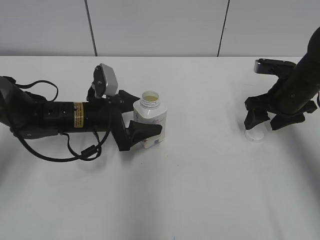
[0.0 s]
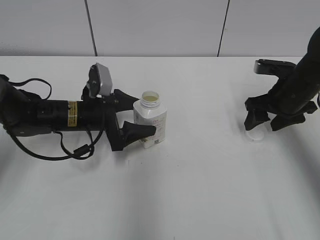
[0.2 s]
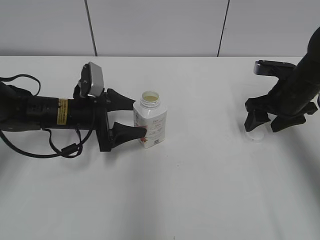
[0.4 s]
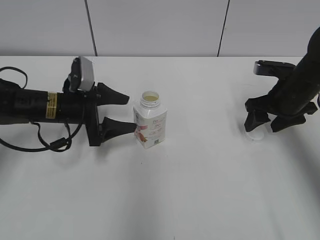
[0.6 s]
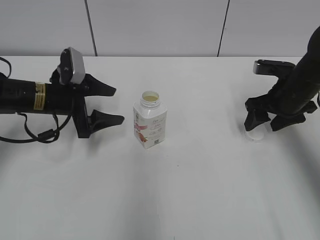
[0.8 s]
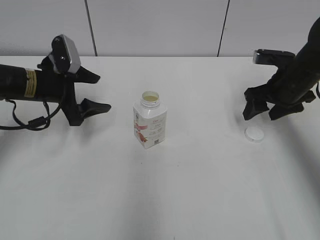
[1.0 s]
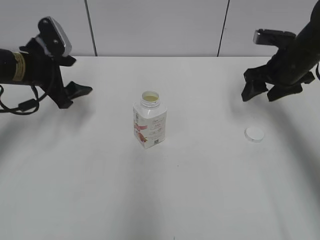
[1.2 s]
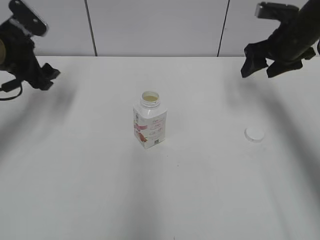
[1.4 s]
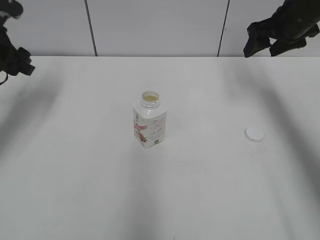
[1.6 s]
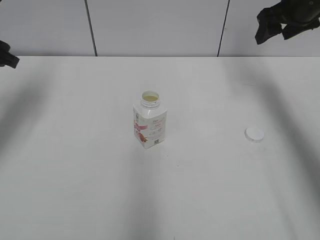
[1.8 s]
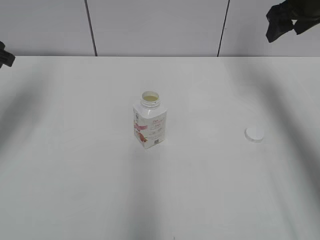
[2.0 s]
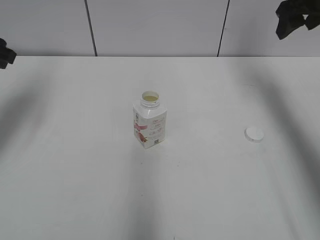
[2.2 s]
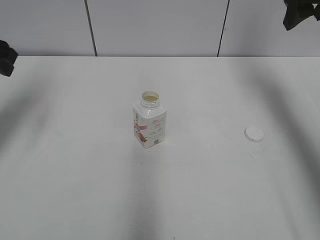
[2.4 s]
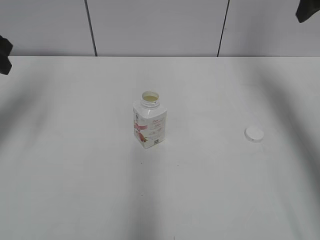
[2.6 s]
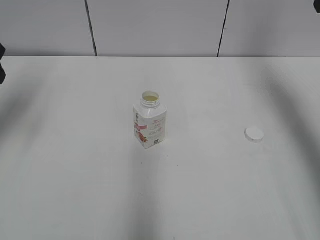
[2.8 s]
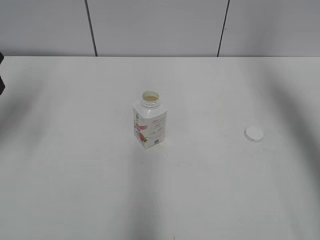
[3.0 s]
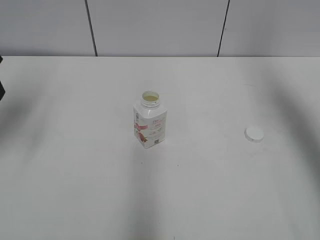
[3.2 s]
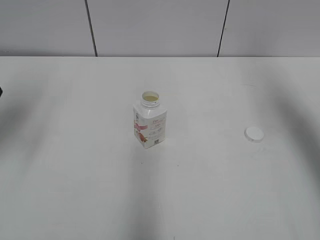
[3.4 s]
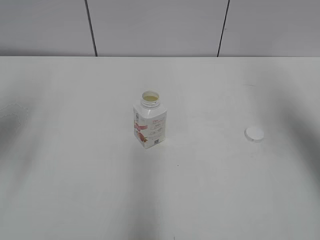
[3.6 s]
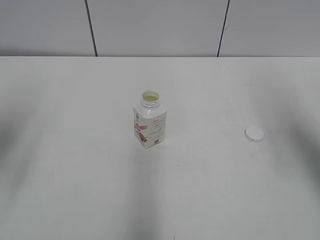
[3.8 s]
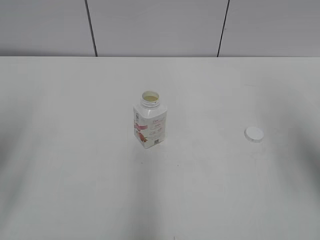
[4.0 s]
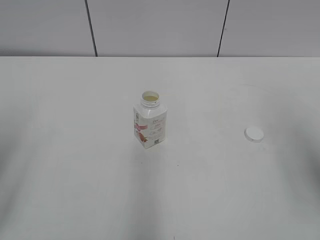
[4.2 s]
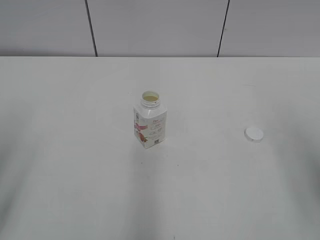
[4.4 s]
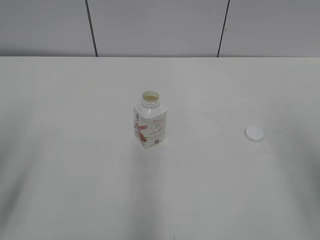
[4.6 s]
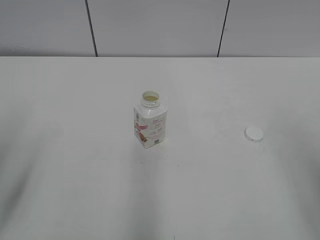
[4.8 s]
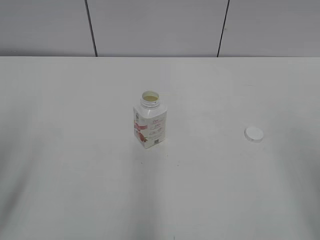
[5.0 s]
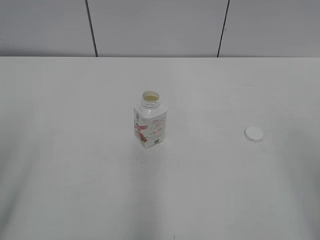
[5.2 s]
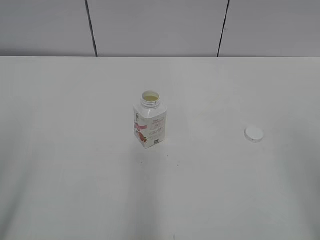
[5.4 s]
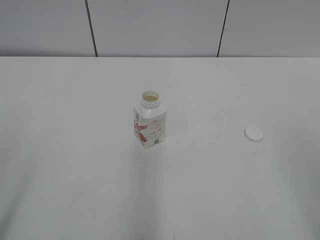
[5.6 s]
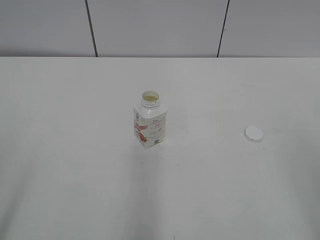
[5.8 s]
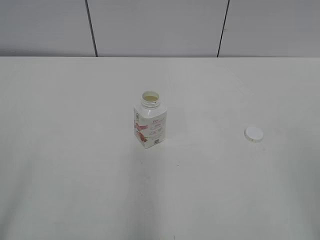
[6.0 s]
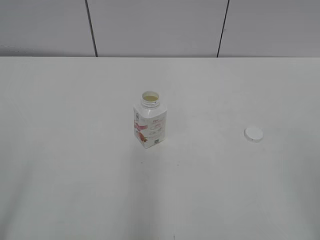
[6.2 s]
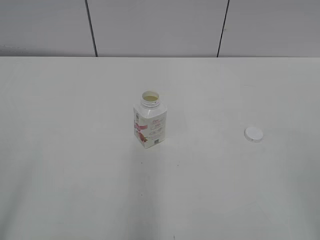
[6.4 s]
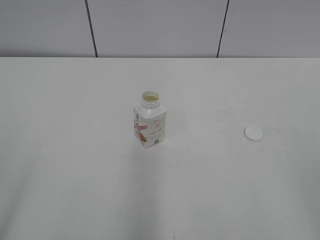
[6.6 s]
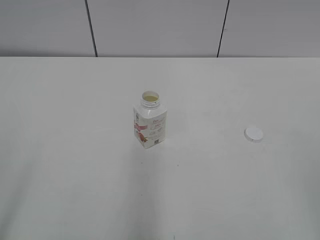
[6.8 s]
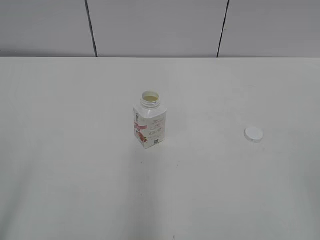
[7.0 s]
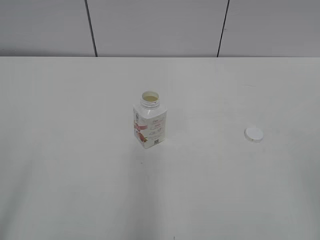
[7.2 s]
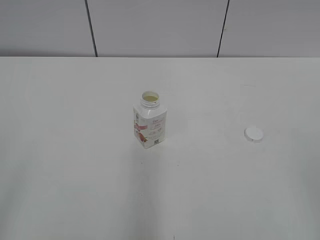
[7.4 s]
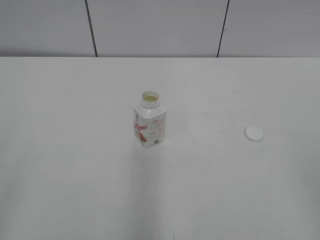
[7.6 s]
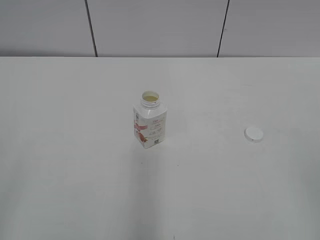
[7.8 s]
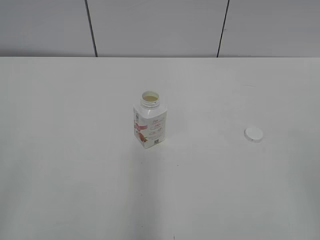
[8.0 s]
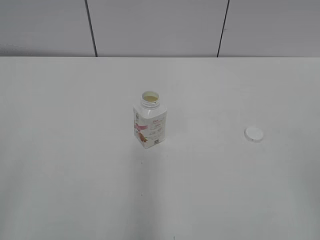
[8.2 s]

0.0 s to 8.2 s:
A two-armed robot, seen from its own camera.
Step, 0.0 to 0.2 s: Place the Yili Changqing with the left hand.
0.0 to 1.6 s: The left gripper is displaced to the left and upward by some 20 cm. Meanwhile the right gripper shifts some 15 cm upward and forward.
1.6 to 3.2 s: The right gripper shifts some 15 cm upward and backward. Meanwhile the left gripper moves backward and upward, roughly 10 cm.
3.2 to 5.0 s: Both grippers move backward, some 25 cm.

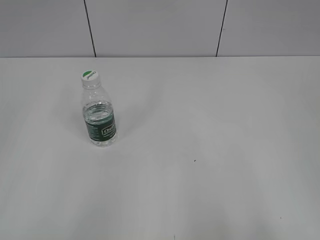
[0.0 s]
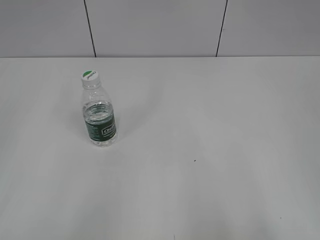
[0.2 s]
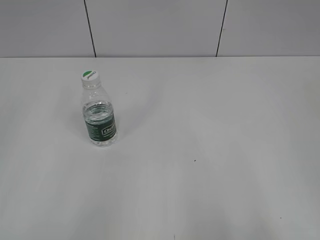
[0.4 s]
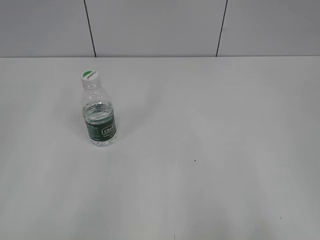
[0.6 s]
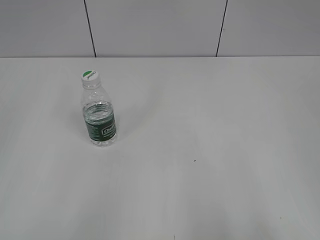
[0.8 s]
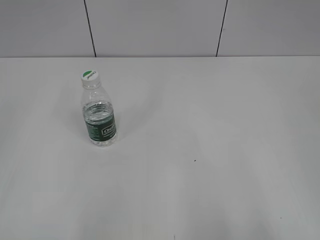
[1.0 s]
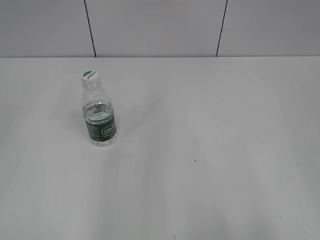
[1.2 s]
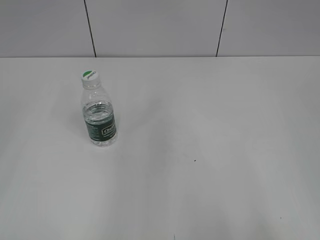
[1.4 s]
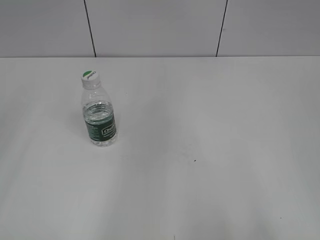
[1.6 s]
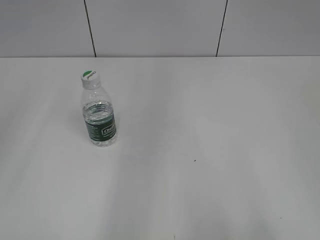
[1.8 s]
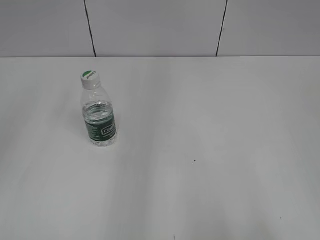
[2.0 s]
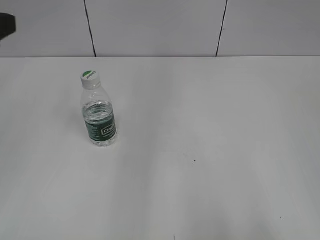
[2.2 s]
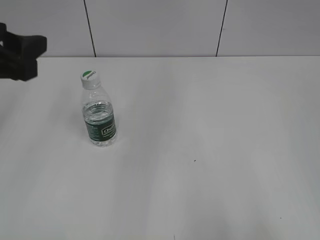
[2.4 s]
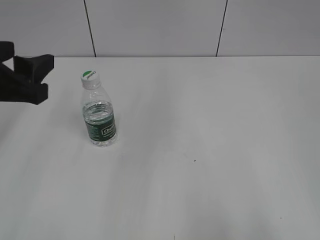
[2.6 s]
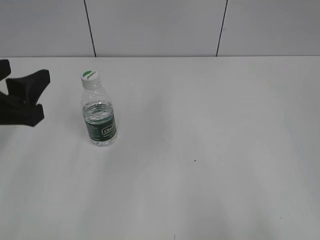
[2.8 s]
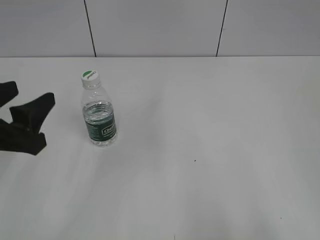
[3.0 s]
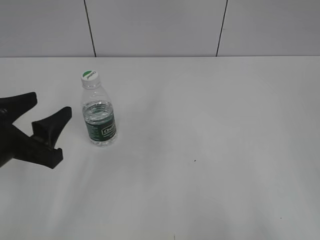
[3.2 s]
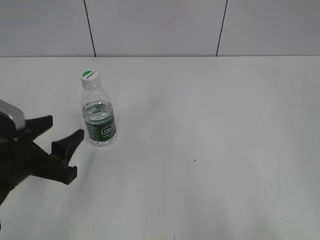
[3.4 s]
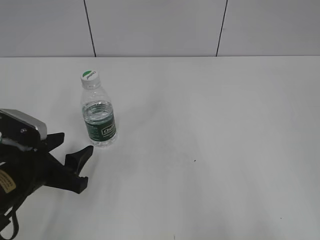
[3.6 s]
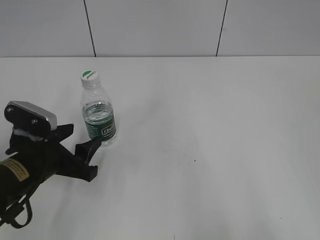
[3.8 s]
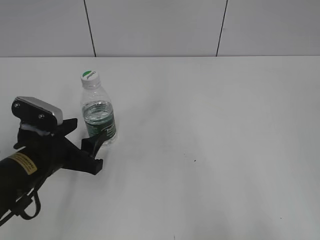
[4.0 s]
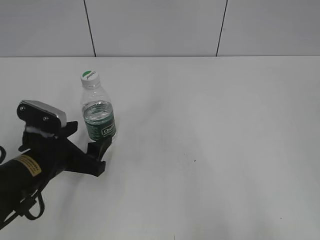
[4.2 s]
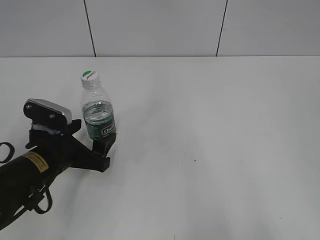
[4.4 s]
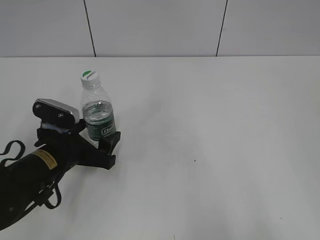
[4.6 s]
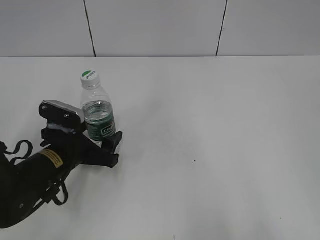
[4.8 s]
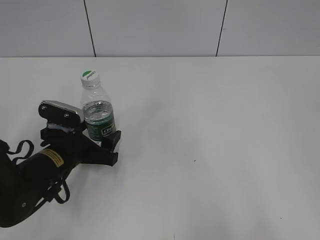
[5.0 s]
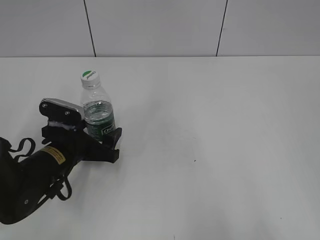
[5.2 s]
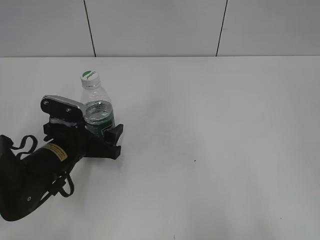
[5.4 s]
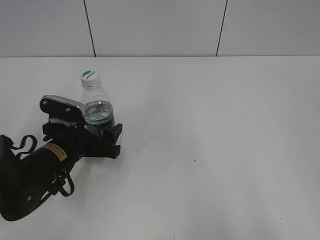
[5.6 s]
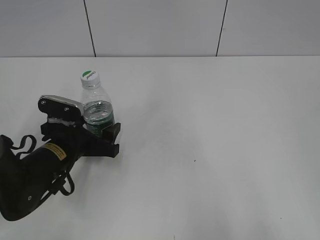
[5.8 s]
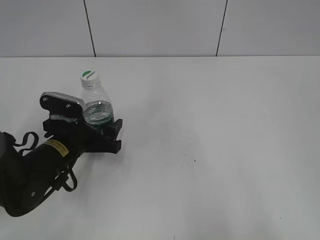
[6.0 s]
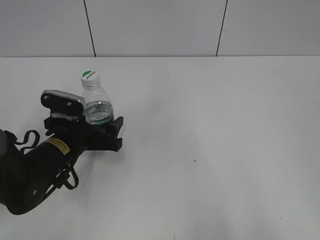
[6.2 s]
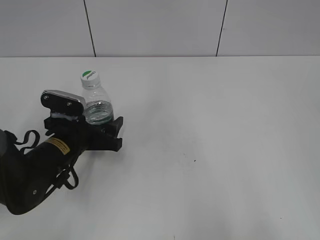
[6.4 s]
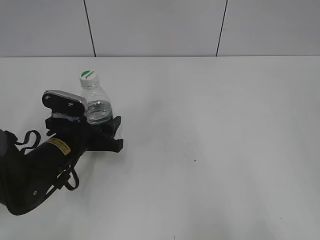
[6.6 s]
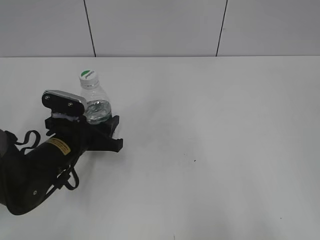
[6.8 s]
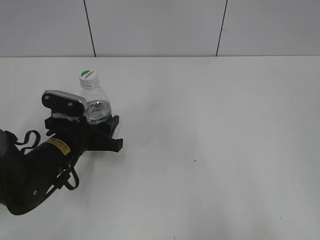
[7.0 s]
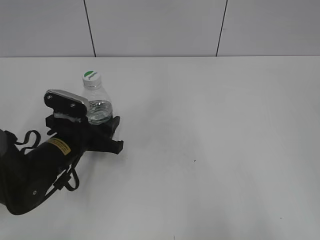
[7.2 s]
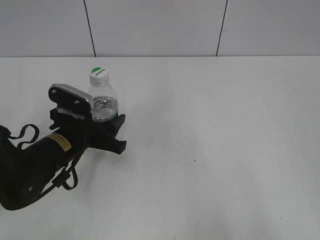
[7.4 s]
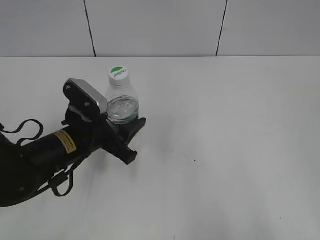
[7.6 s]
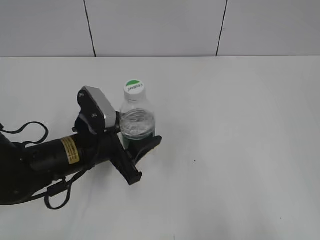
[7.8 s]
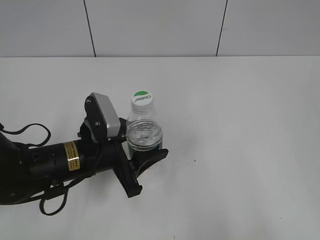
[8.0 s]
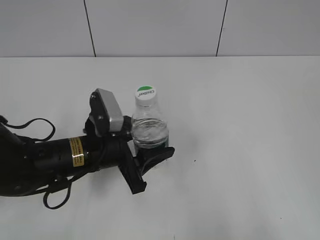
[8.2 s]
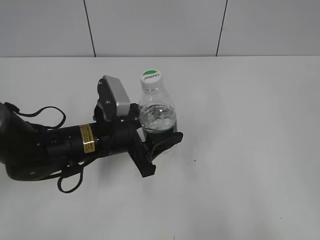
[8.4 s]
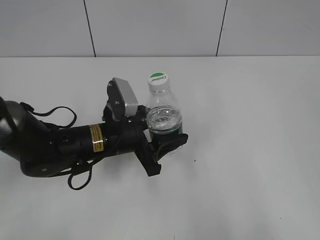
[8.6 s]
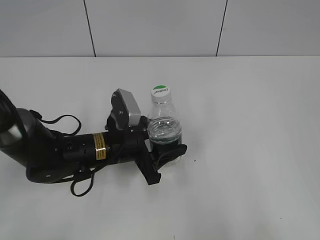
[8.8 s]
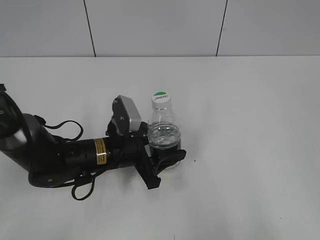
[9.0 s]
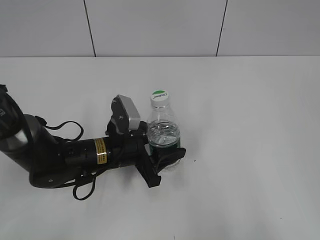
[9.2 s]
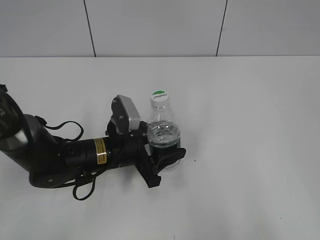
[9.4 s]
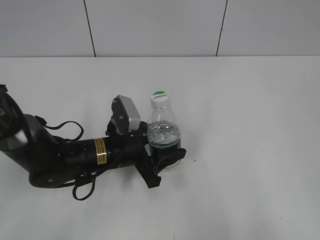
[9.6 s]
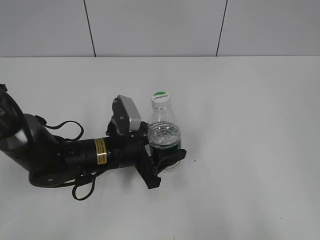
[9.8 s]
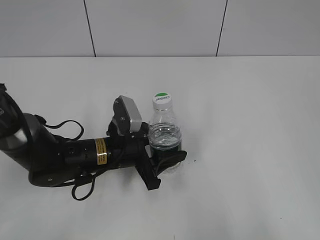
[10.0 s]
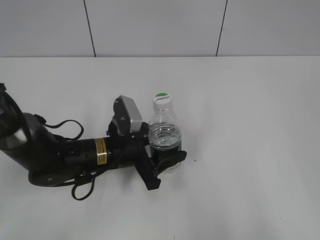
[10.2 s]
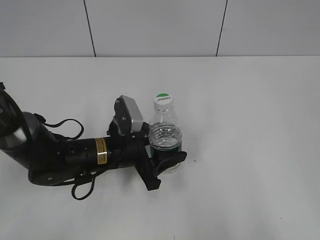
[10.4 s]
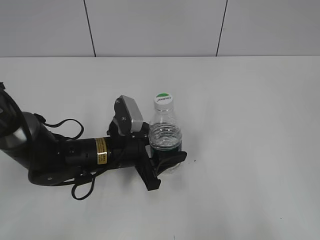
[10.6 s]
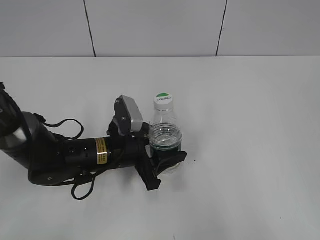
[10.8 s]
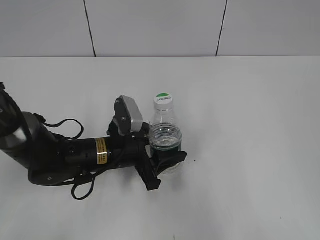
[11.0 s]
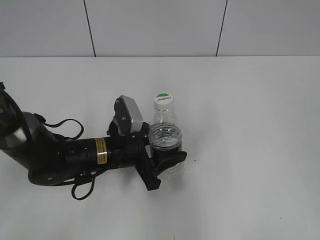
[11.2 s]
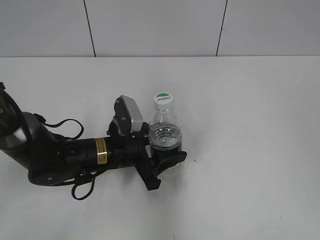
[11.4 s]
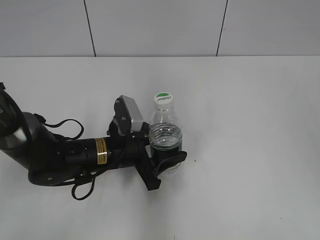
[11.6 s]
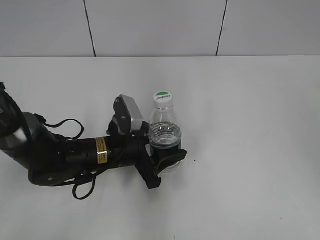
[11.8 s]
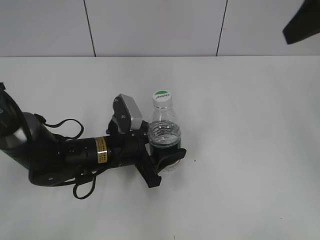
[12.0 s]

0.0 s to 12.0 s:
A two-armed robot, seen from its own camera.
Step, 0.0 to 7.0 s: Grasp the bottle and move it to the center of the table with the left gripper.
Step, 7.2 to 10.4 s: Lift the bottle and move it to the center of the table with the left gripper.
1.6 to 3.0 s: The left gripper goes about 25 cm downward, forward and to the right.
3.0 to 4.4 s: The left gripper is displaced downward and forward by roughly 15 cm, and opens up.
4.4 to 6.0 s: The grippers make only small movements.
6.0 to 7.6 s: The left gripper closes.
7.6 to 9.0 s: The left gripper travels to the right by approximately 5 cm.
9.0 to 10.4 s: Both grippers stay put.
10.4 to 12.0 s: The right gripper is displaced forward by approximately 25 cm.

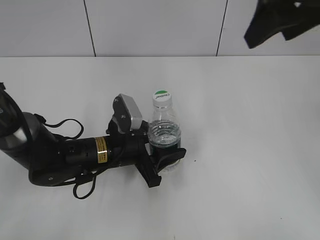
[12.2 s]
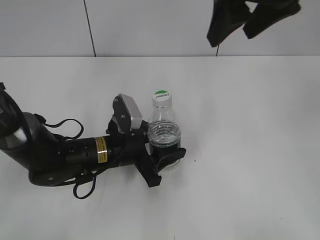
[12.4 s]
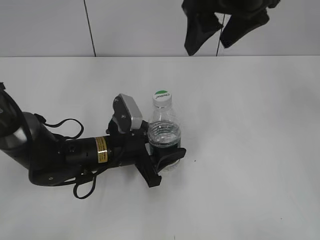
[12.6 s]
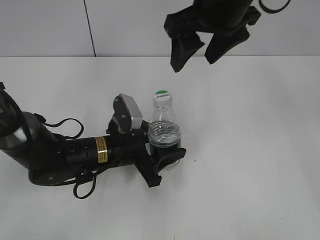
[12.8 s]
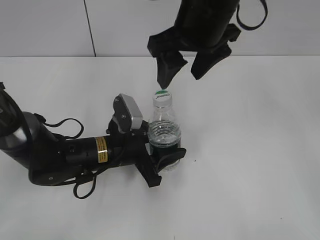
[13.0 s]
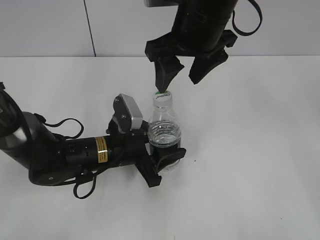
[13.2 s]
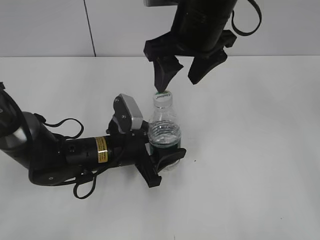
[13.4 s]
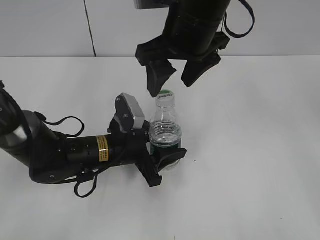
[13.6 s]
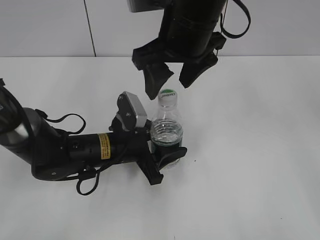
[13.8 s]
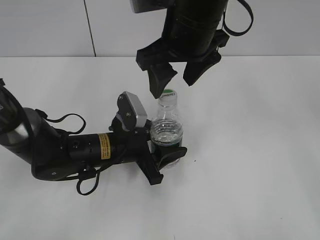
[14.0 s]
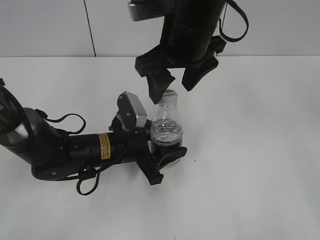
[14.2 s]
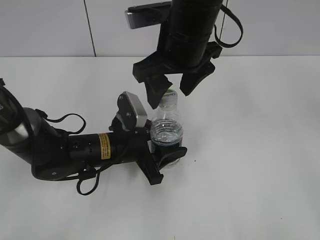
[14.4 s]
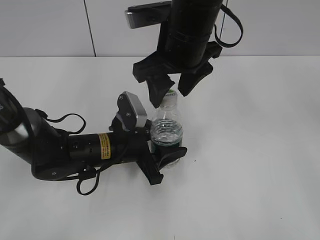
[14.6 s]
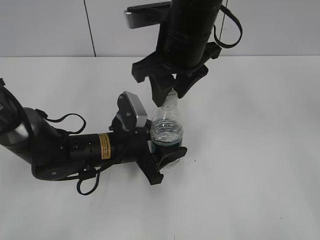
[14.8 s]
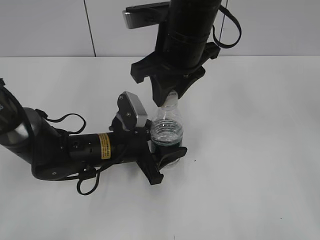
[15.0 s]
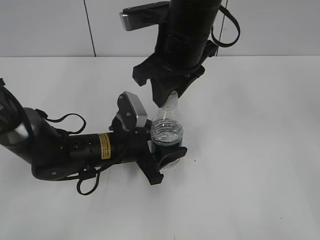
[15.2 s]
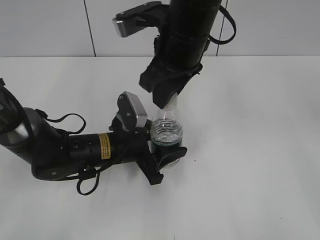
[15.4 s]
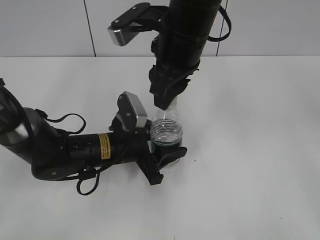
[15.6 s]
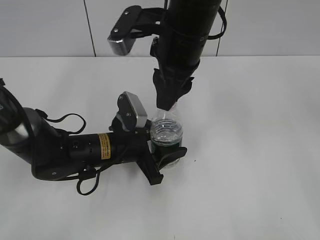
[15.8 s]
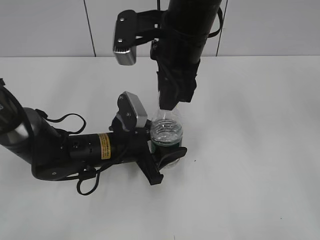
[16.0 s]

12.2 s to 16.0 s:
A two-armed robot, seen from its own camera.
12.2 to 13.4 s: The right gripper goes approximately 15 cm to the left and downward.
13.4 to 14.8 s: The right gripper closes its fingers.
